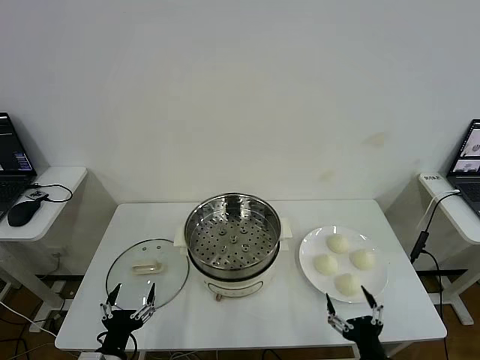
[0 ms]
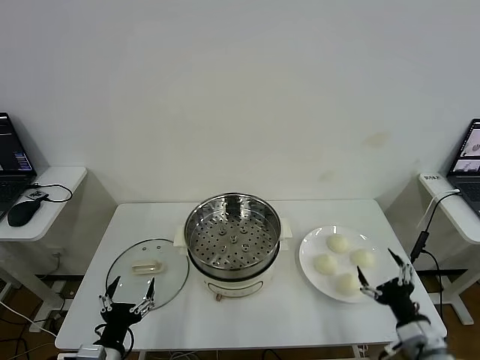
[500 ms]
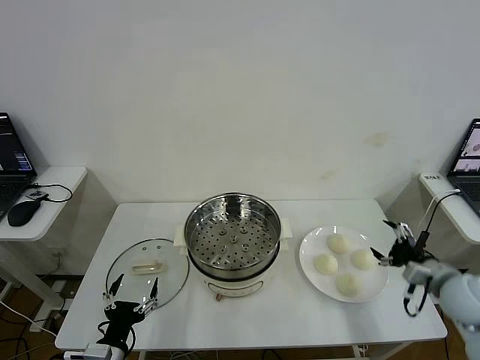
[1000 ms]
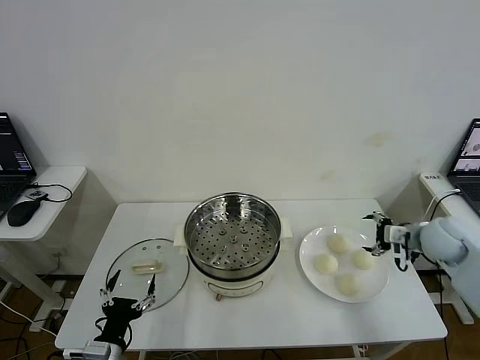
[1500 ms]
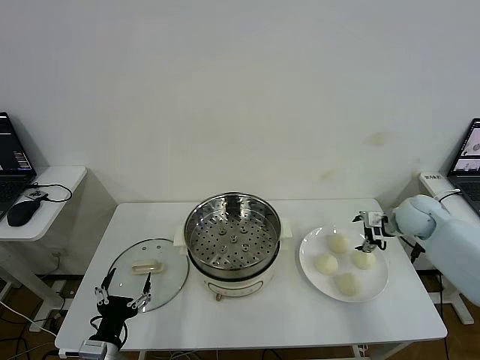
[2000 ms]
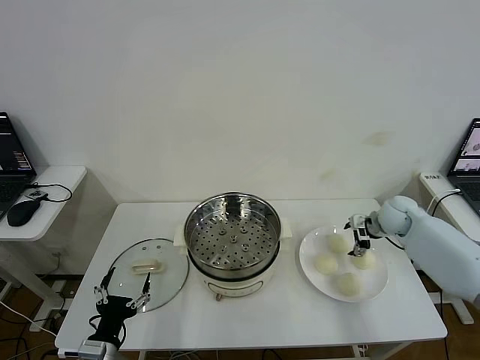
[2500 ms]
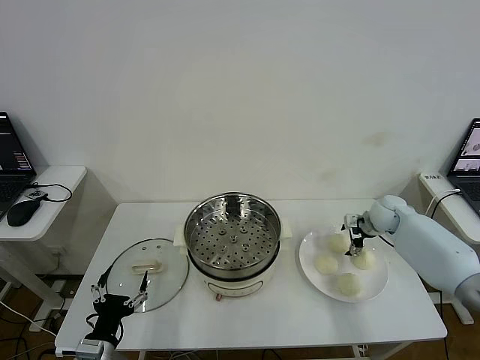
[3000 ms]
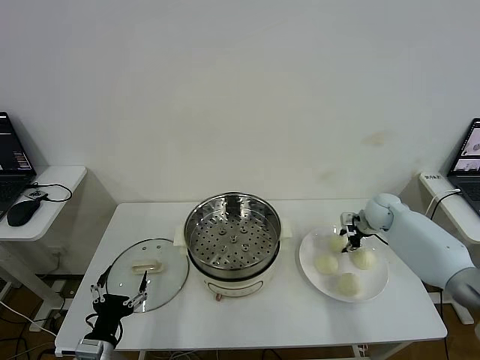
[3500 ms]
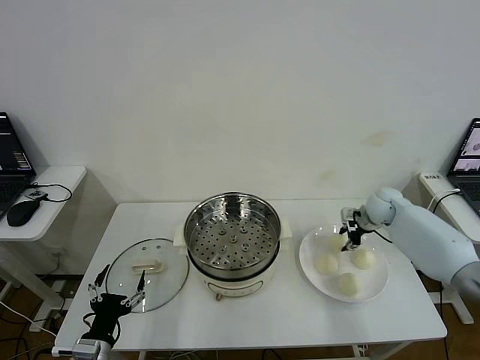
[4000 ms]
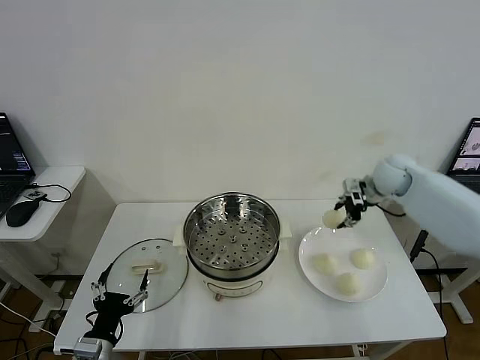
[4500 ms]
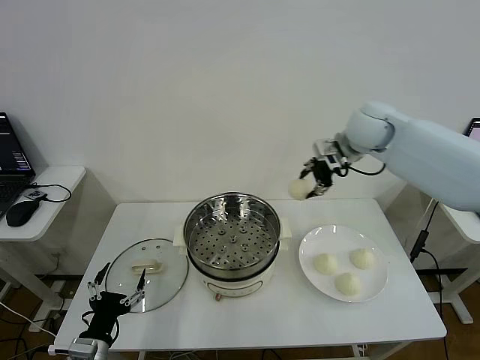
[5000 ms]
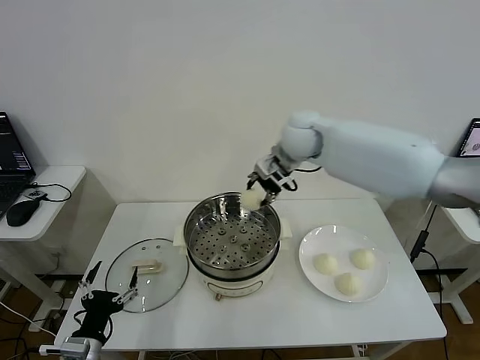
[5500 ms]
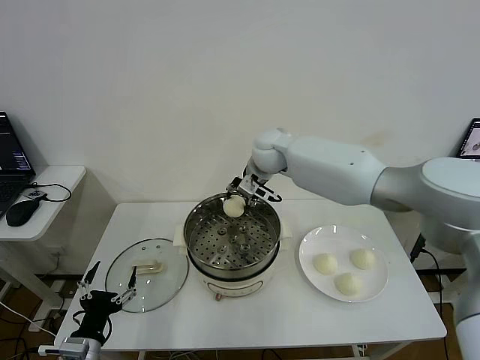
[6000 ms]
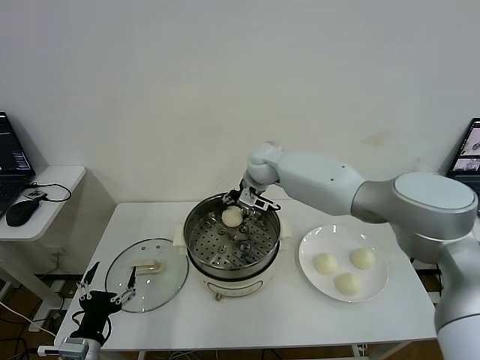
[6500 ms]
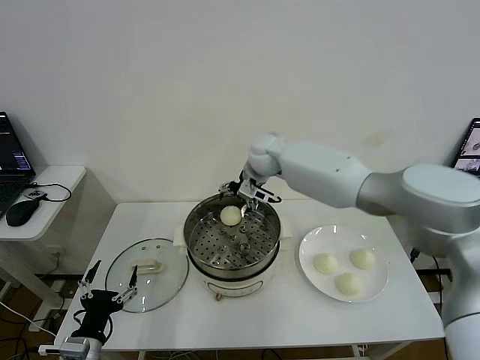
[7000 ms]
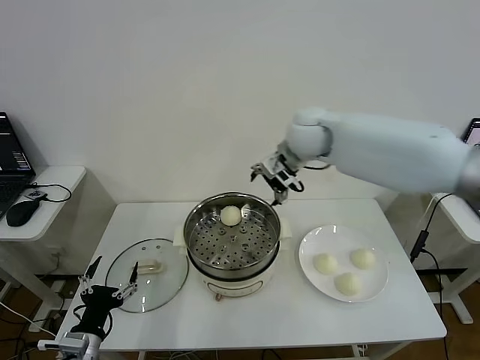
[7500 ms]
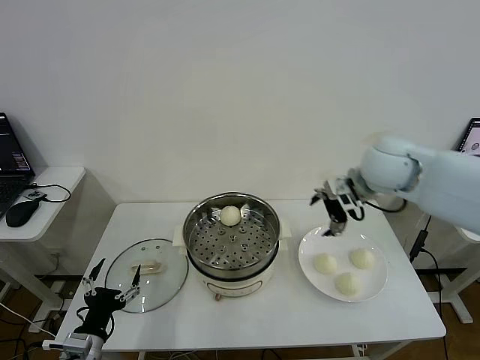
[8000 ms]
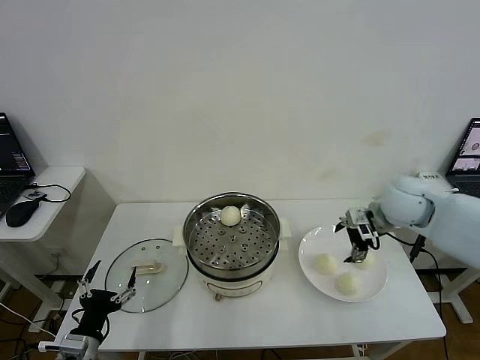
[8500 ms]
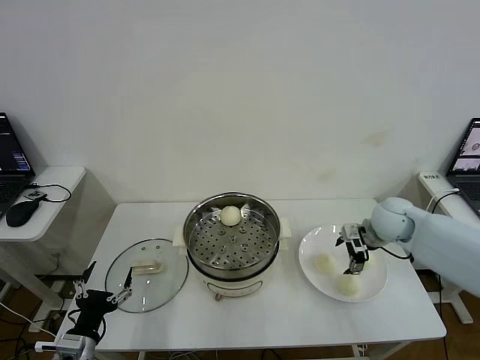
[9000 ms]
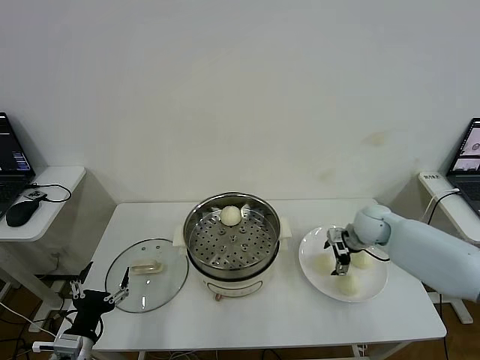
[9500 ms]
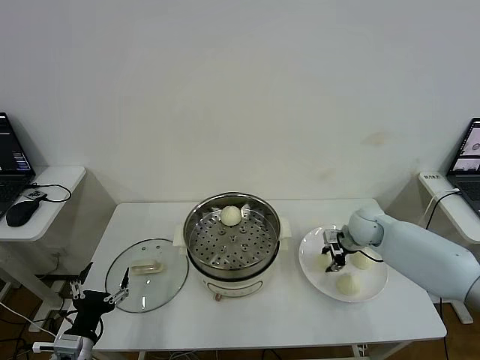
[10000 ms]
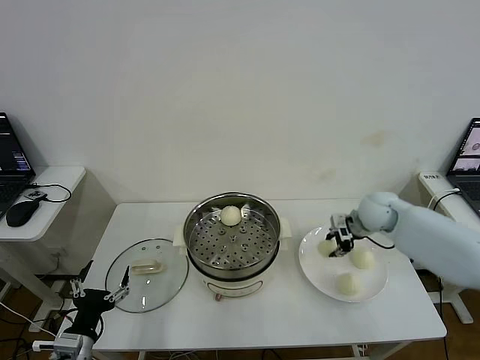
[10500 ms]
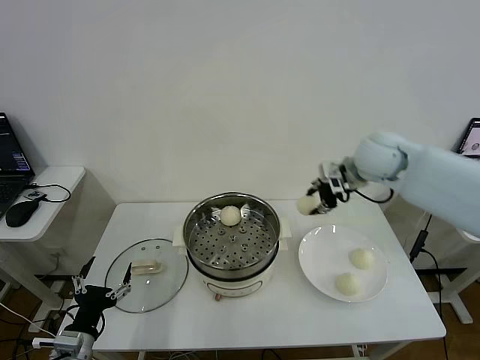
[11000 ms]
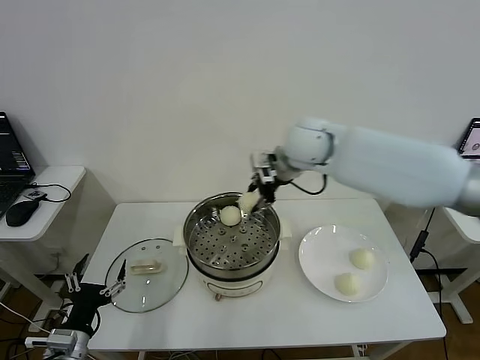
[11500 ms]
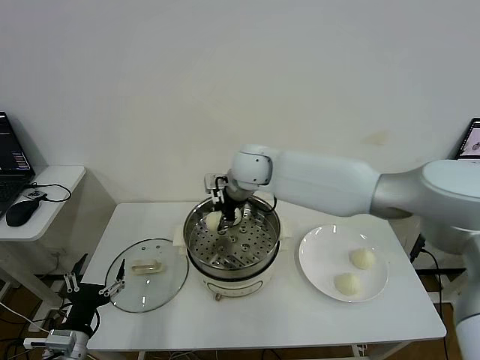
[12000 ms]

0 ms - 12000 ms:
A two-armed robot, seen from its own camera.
Step, 0 ms - 3000 ms: Grasp the baozi in the plate with right gripper.
Step, 4000 ms - 6500 ms: Place the baozi on the steamer with right gripper.
Step, 7000 ms - 10000 ms: Grasp the baozi in the plate with right gripper.
2000 ms - 4000 ms: The right gripper moves forward, some 5 cm, and closes its fingers.
4000 ms - 6000 ms: The right gripper moves to the left, about 30 cm.
6000 ms - 8000 ms: The right gripper is displaced to the right and backward by roughly 25 cm, and opens its fingers.
8000 ms - 10000 ms: The right gripper is displaced downward by about 20 cm, and closes.
10000 ms - 12000 ms: The right gripper goes roughly 35 cm to the left and upward.

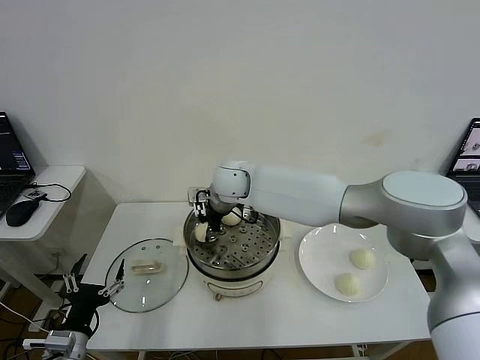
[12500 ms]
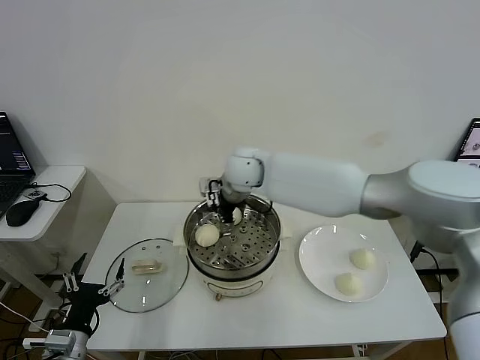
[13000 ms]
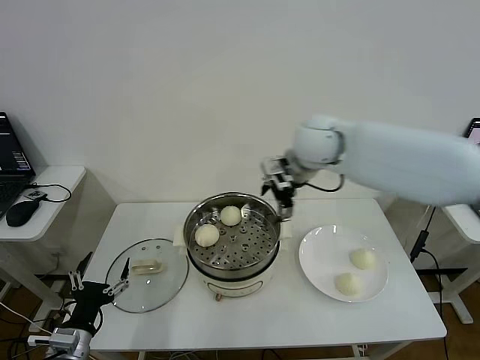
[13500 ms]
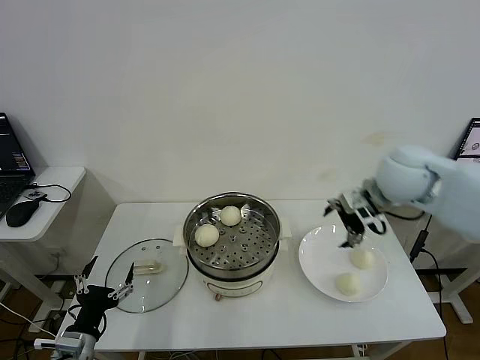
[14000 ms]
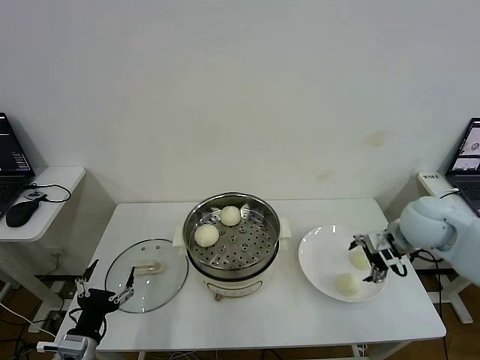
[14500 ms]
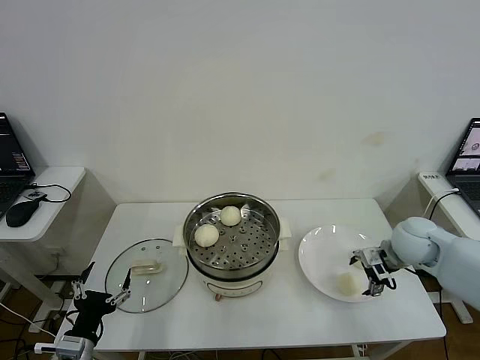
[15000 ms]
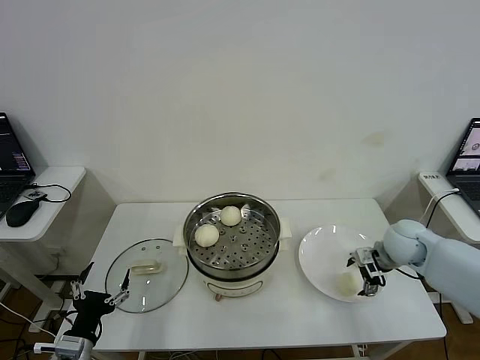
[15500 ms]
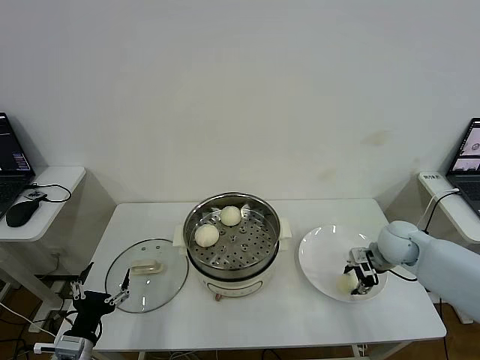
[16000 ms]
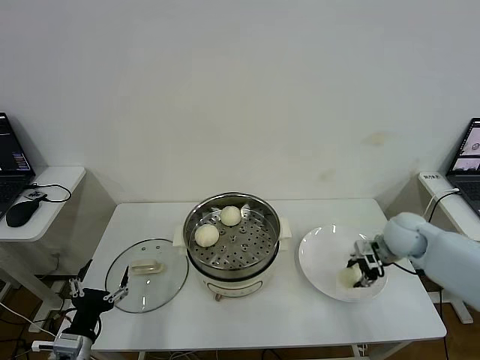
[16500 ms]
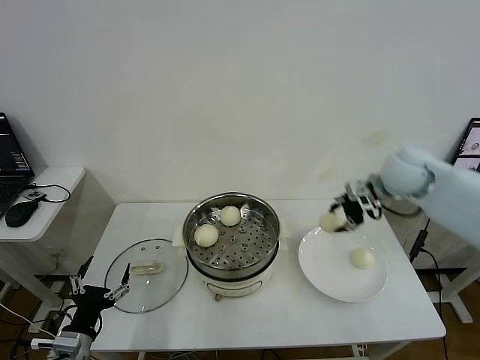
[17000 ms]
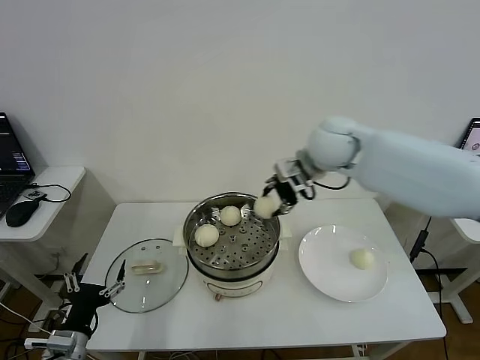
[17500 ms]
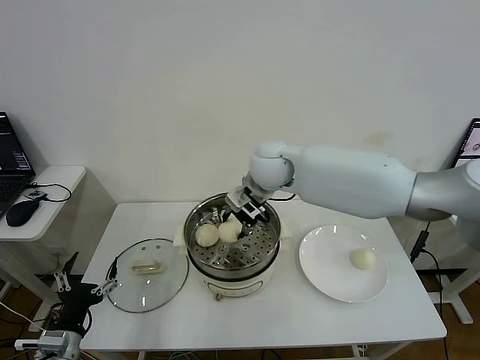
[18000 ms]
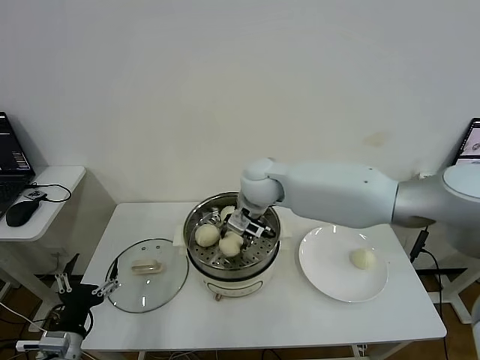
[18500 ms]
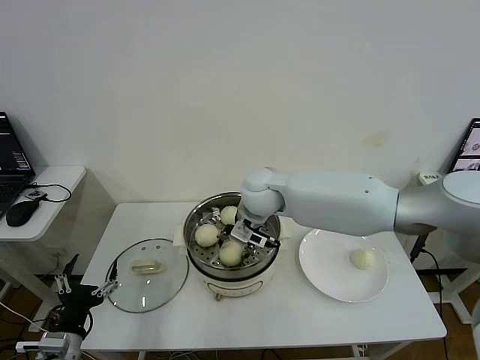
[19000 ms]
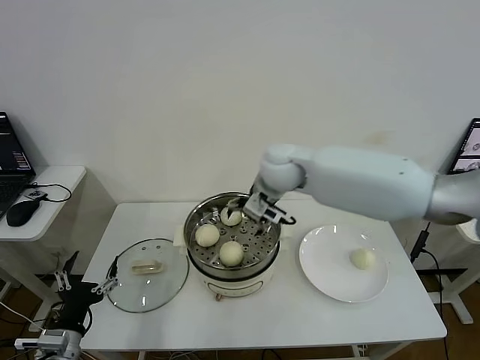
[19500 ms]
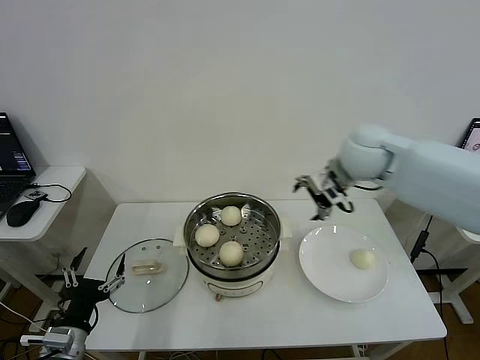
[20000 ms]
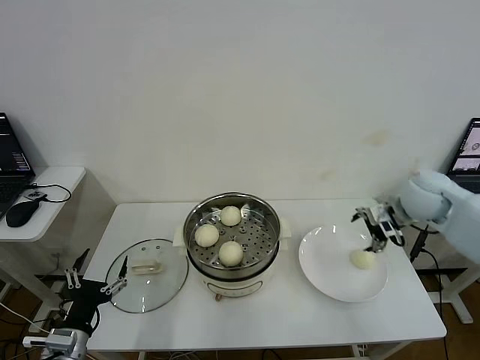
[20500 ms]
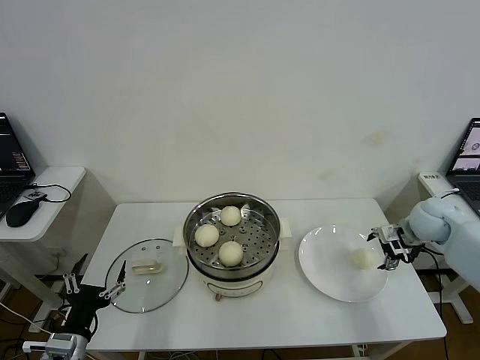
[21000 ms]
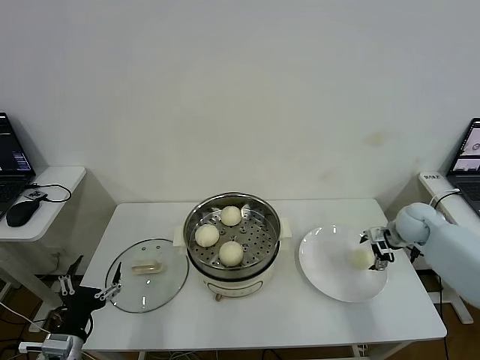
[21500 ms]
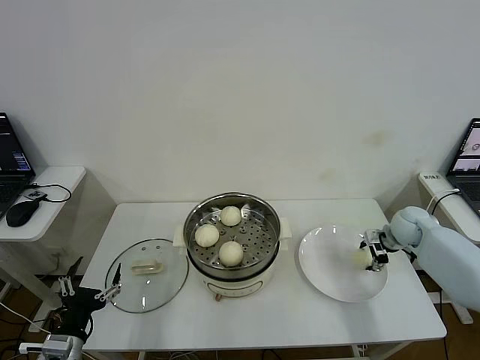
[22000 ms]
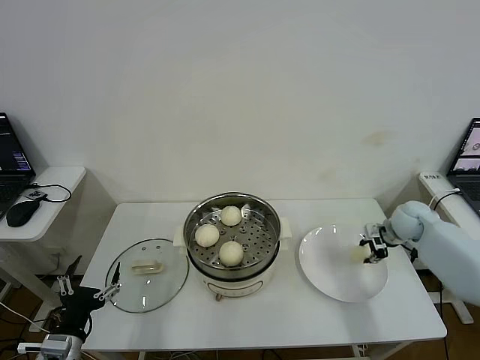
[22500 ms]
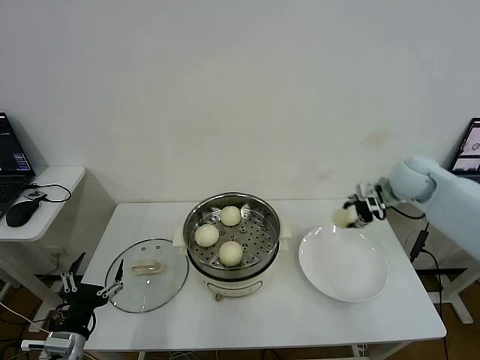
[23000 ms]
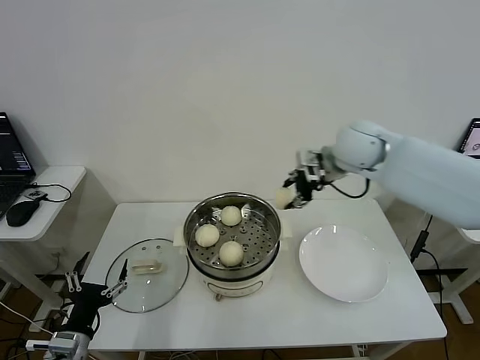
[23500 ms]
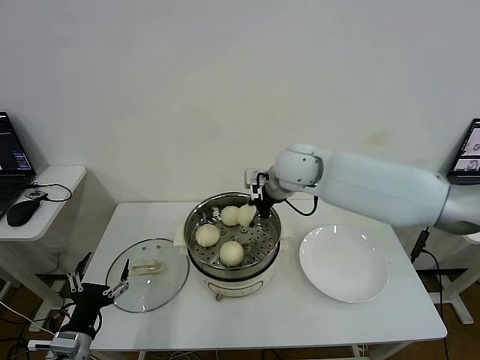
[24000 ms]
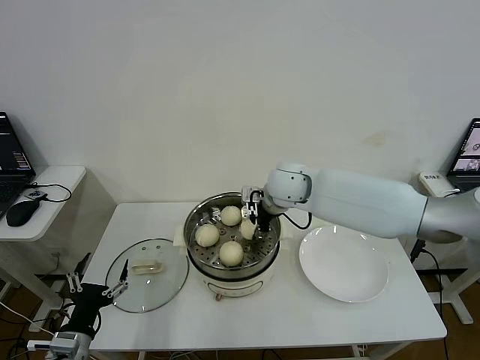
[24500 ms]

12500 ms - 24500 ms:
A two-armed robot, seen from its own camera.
Step, 13000 ms - 16000 ms: Grasp the baozi in the plate with right gripper.
Step, 16500 ms - 19000 ms: Place the baozi on the steamer with right gripper.
Step, 19500 ms - 22000 ms: Grasp the baozi in the plate with right gripper.
12500 ms - 14500 ms: The right gripper shifts some 40 cm to the right, and opens.
14500 ms - 16500 ms: The right gripper goes about 5 cm downward, and closes its fingers.
16500 ms - 18500 ms: The right gripper travels to the left by about 35 cm.
18500 ms - 20500 ms: The right gripper goes roughly 35 cm to the right, and opens its fingers.
20500 ms - 22500 ms: The right gripper is displaced downward by approximately 10 cm, and closes.
22500 ms - 24500 ms: The right gripper travels to the left by some 35 cm.

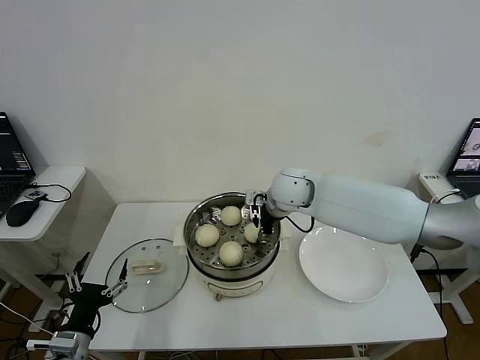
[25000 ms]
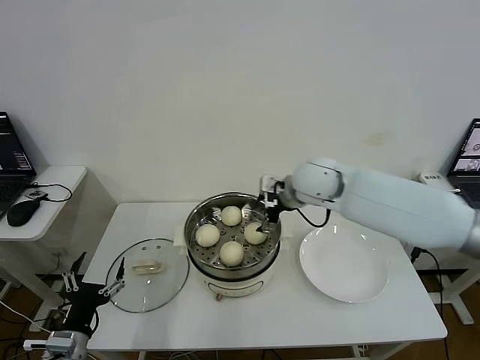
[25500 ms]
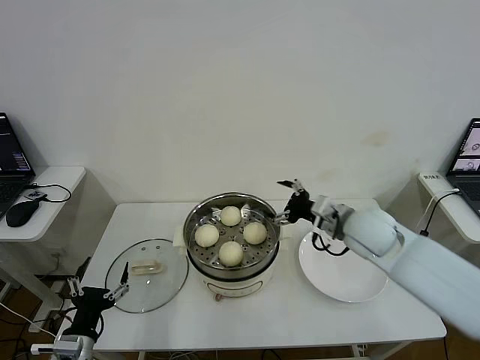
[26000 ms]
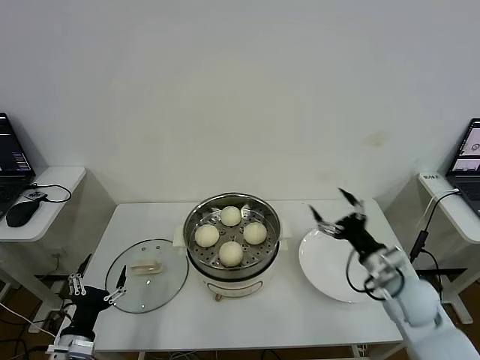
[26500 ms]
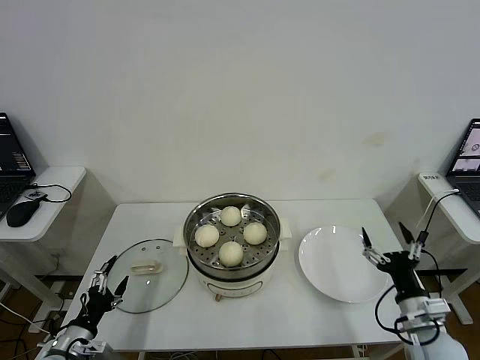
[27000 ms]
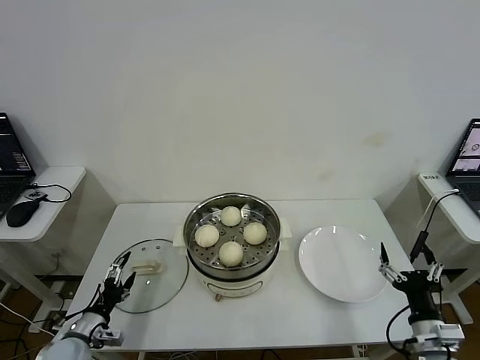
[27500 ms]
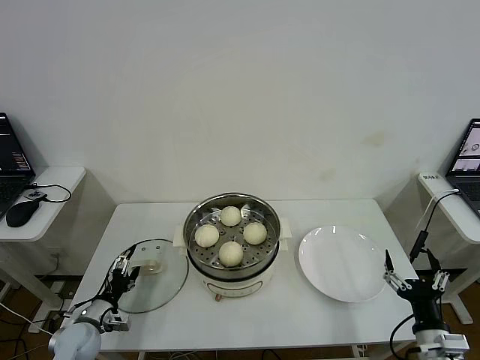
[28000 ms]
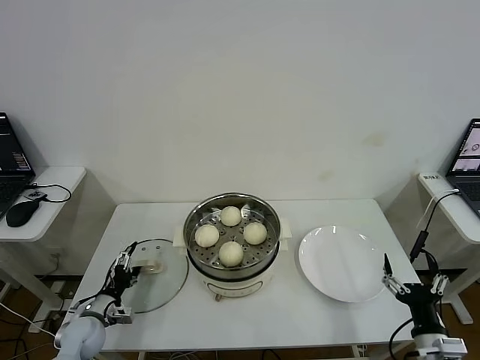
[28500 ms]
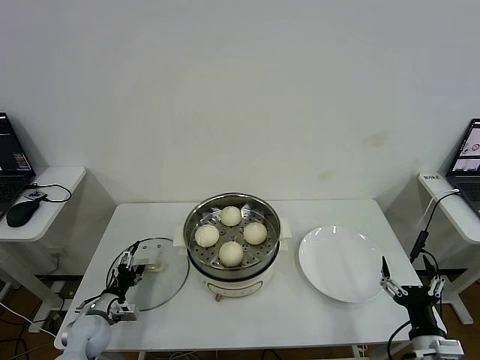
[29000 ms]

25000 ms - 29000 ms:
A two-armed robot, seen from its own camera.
25000 ms - 27000 ms: The left gripper travels downward and to the left by approximately 10 cm, while the right gripper goes approximately 40 cm backward, to the right and downward, and opens its fingers.
27000 ms - 29000 ms: The right gripper heads backward, covering roughly 5 cm. Meanwhile the left gripper heads forward and downward, covering roughly 15 cm.
